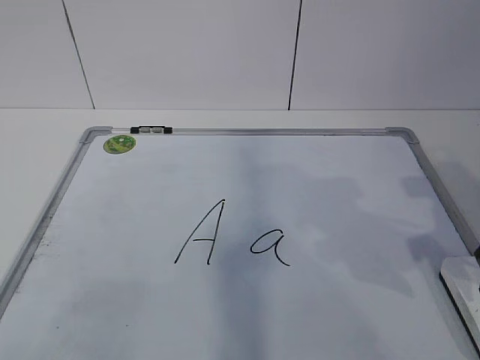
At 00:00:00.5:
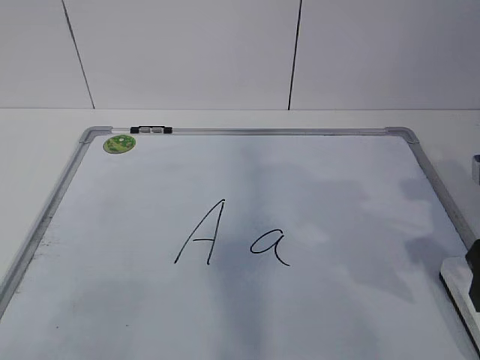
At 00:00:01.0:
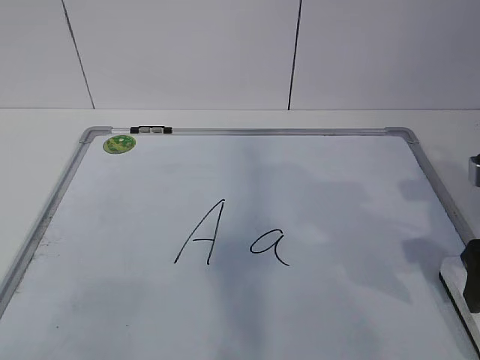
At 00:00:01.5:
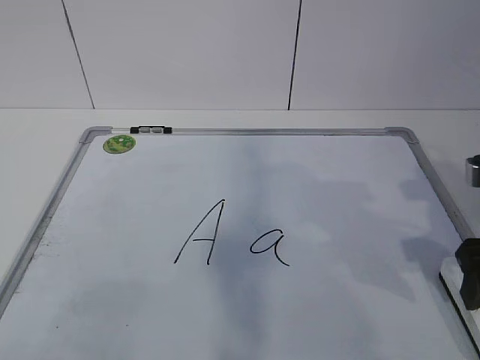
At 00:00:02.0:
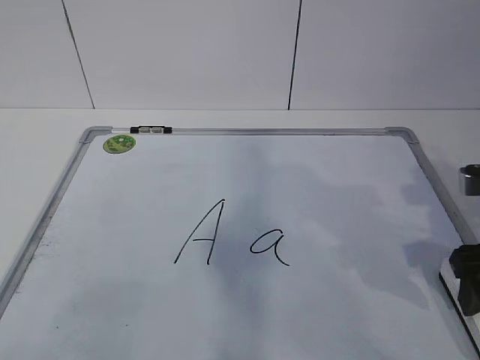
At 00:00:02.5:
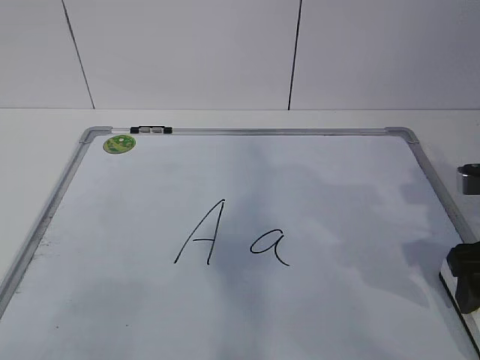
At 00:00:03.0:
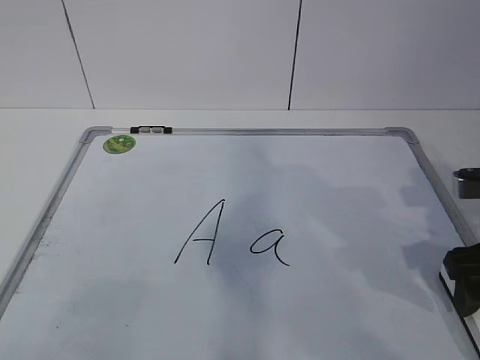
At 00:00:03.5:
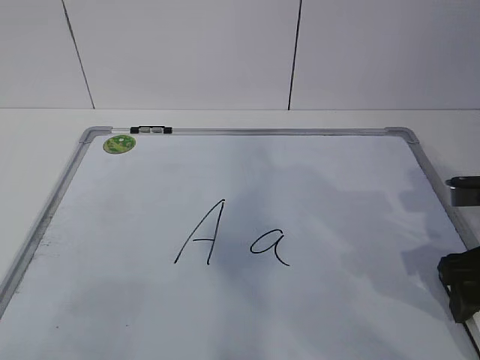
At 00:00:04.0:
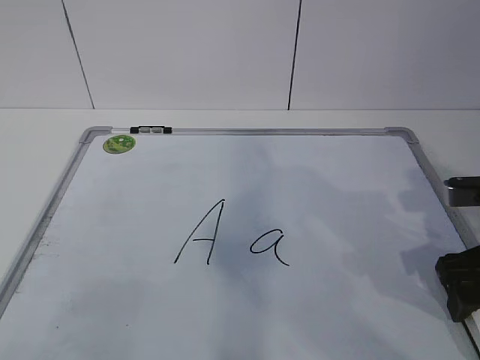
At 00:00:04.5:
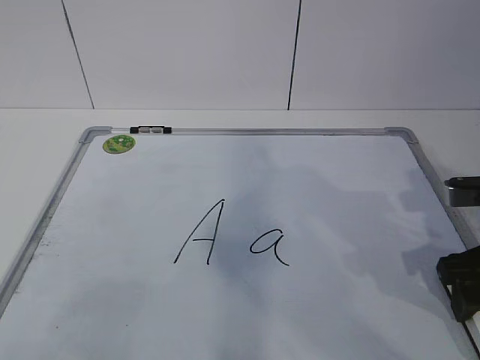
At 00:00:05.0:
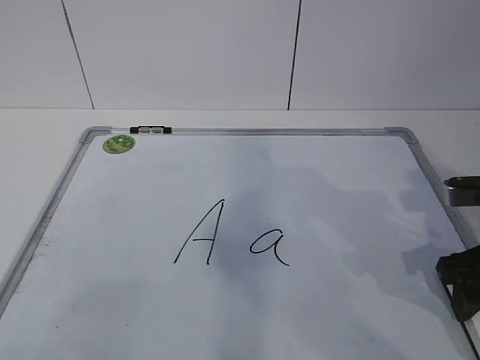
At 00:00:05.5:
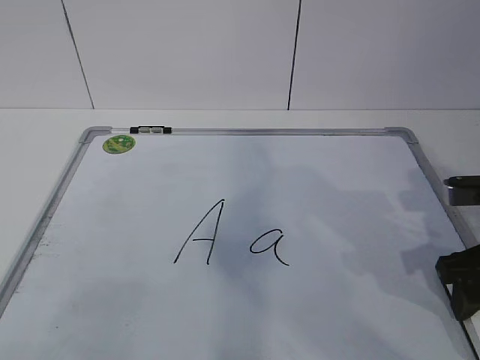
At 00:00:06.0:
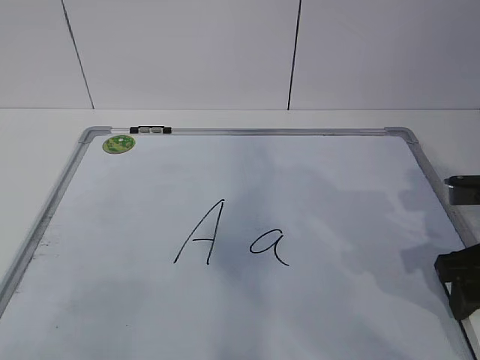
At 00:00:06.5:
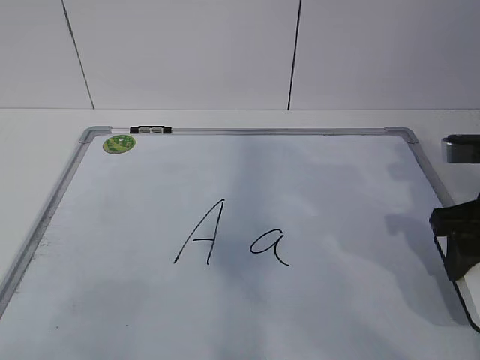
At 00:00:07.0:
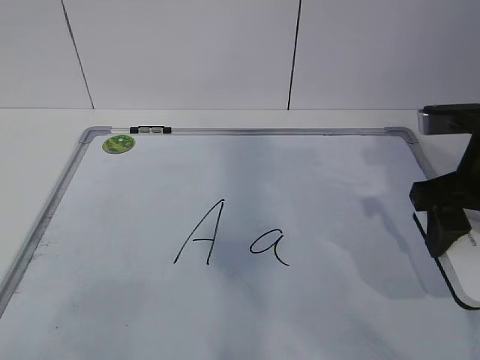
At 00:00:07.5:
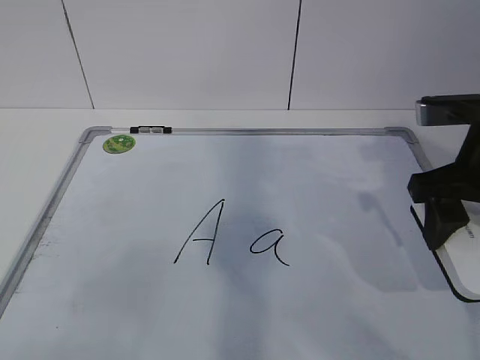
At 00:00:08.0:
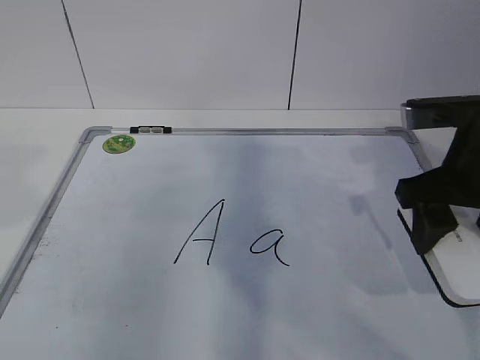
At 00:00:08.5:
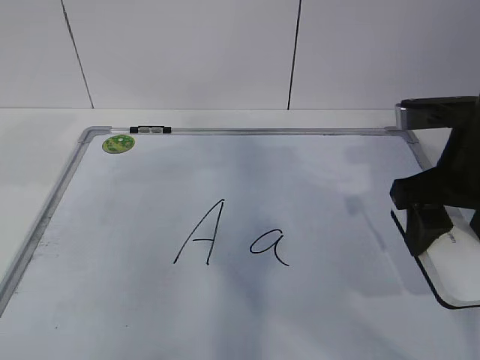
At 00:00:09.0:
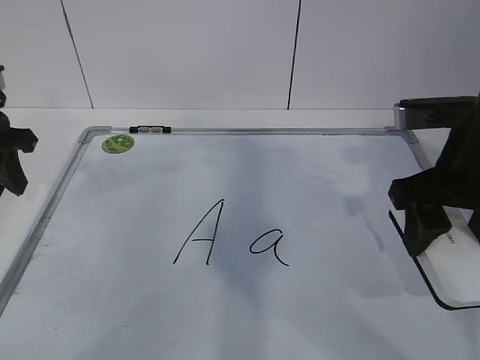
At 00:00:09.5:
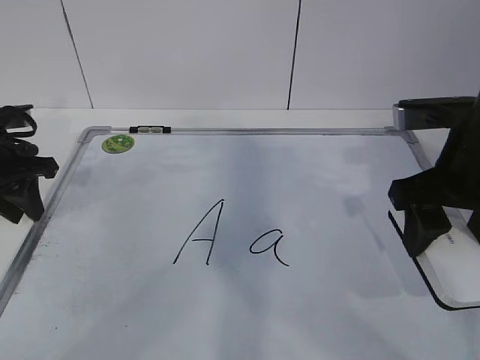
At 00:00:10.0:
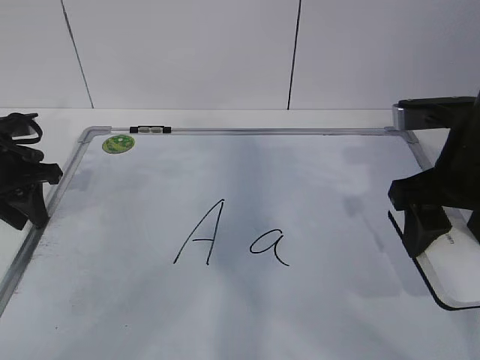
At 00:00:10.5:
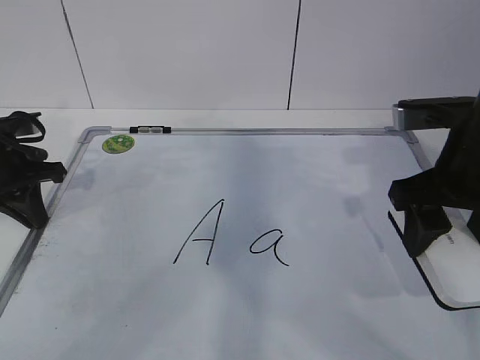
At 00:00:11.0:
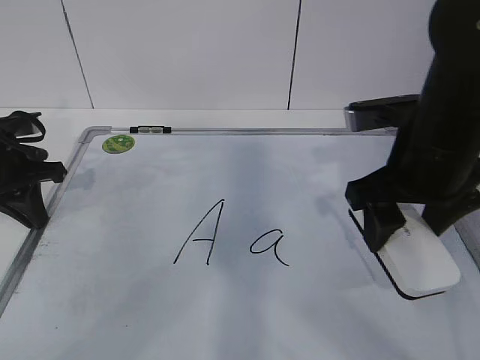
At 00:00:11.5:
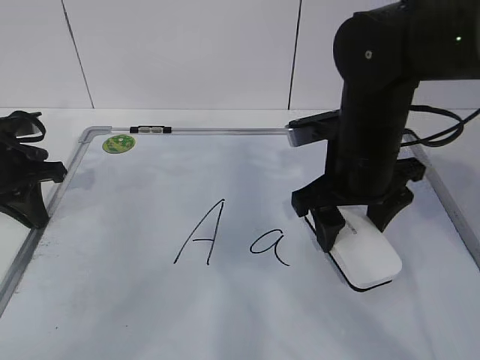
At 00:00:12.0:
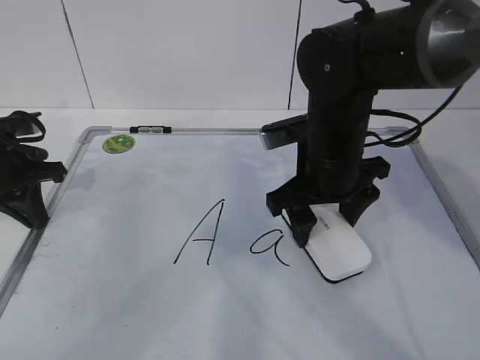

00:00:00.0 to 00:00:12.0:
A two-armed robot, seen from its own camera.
Task of the whole recording: pick up the eraser on the blackboard and erase the letter "a".
Step, 00:00:04.5 to 00:00:07.5: Hold the drawing board steady with your left hand.
00:00:00.0 to 00:00:02.0: The right gripper opens up.
00:00:02.0 to 00:00:04.0: The grippers move only a little.
00:00:06.0 to 00:00:08.0: The right gripper travels upward by approximately 10 cm.
00:00:08.0 to 00:00:10.0: The left gripper shifts approximately 30 cm forward and downward.
00:00:10.0 to 00:00:12.0: The right gripper travels to the left, forward and downward by about 15 cm; the left gripper closes.

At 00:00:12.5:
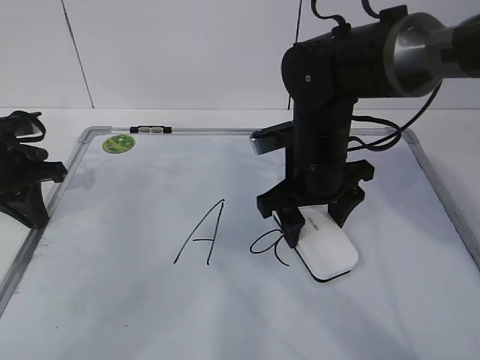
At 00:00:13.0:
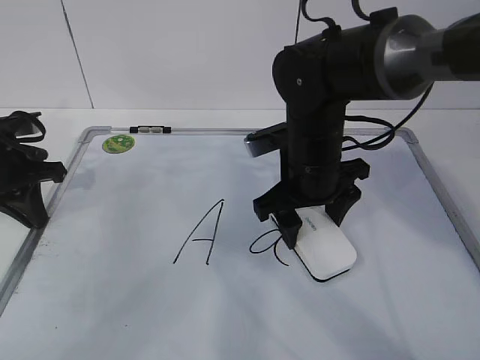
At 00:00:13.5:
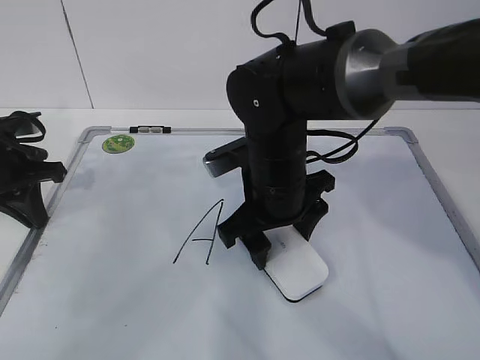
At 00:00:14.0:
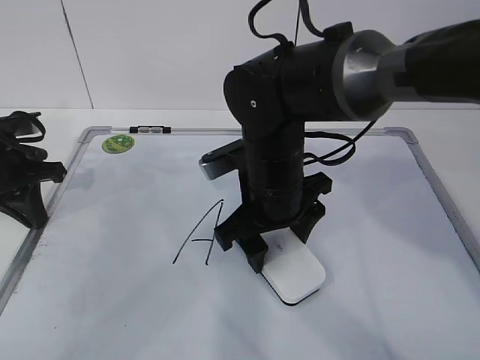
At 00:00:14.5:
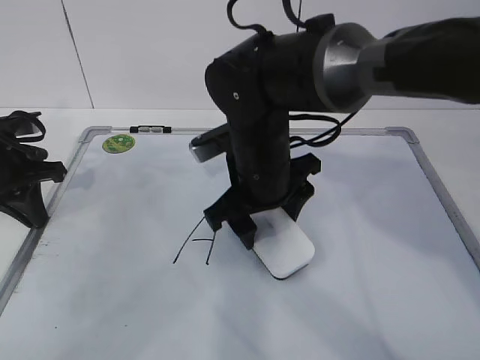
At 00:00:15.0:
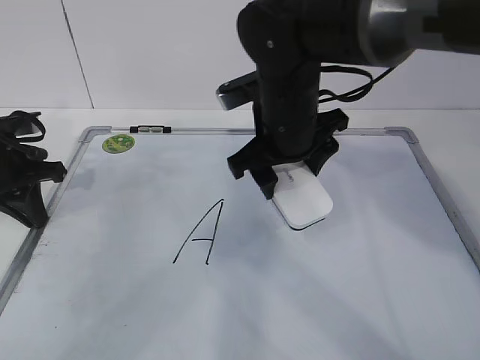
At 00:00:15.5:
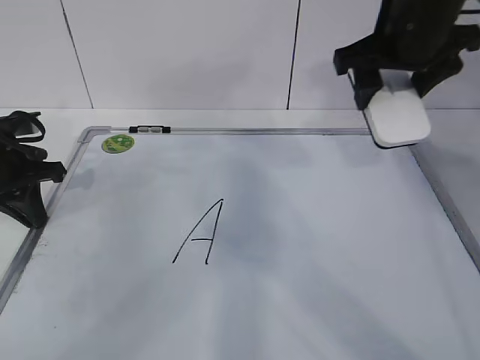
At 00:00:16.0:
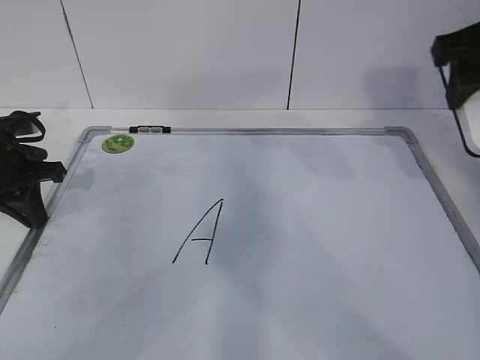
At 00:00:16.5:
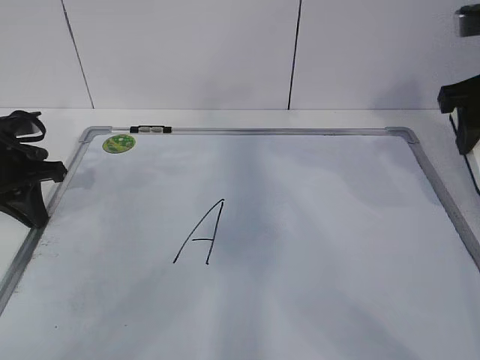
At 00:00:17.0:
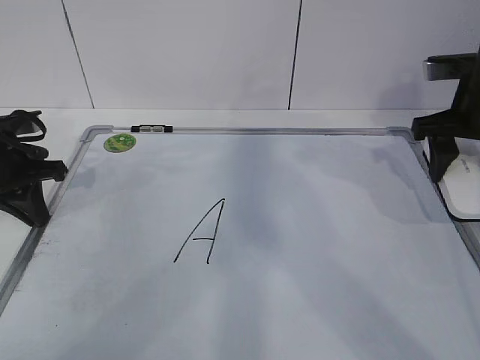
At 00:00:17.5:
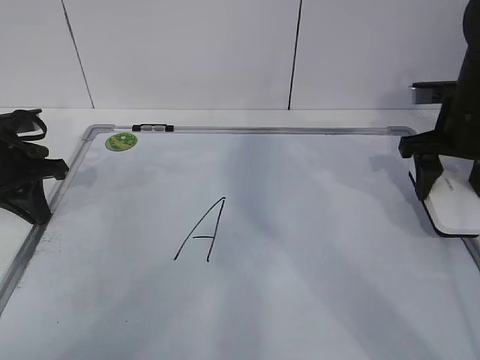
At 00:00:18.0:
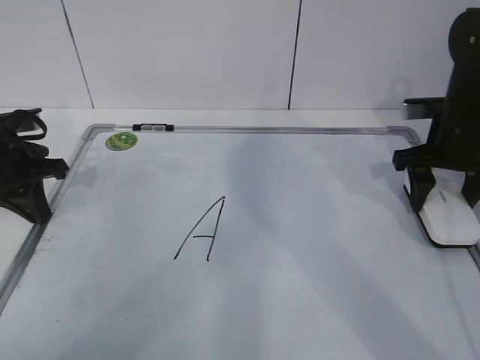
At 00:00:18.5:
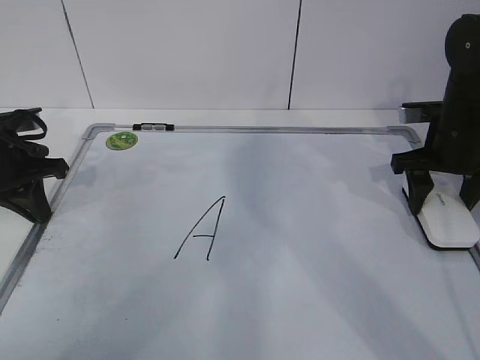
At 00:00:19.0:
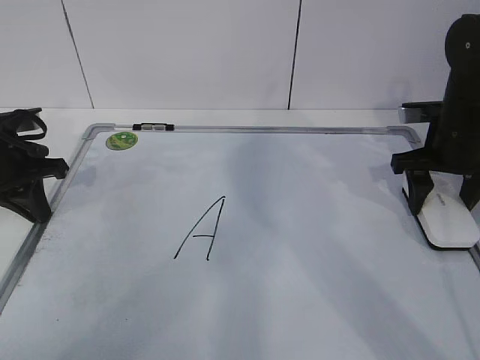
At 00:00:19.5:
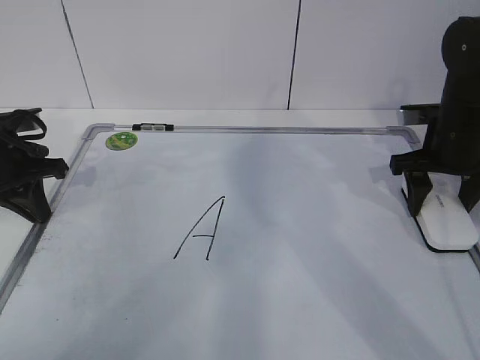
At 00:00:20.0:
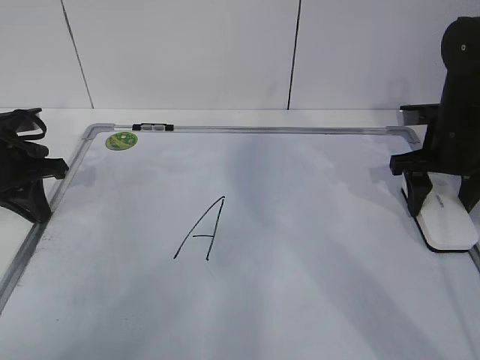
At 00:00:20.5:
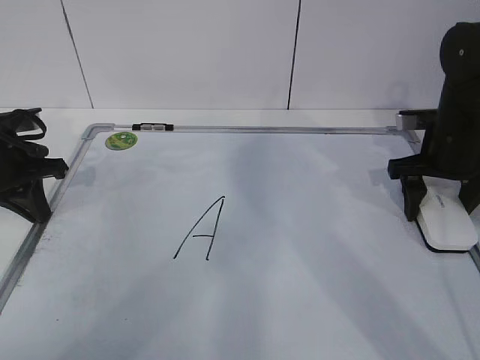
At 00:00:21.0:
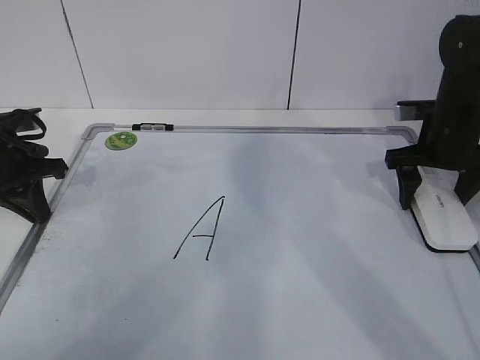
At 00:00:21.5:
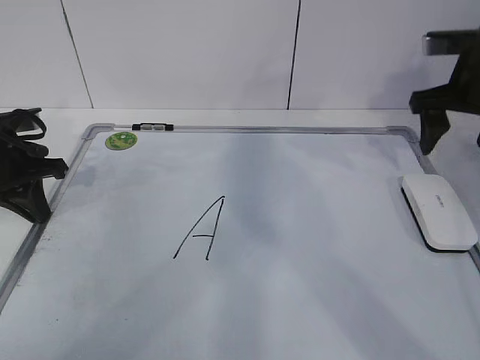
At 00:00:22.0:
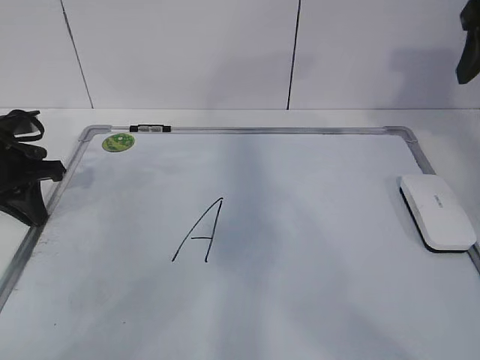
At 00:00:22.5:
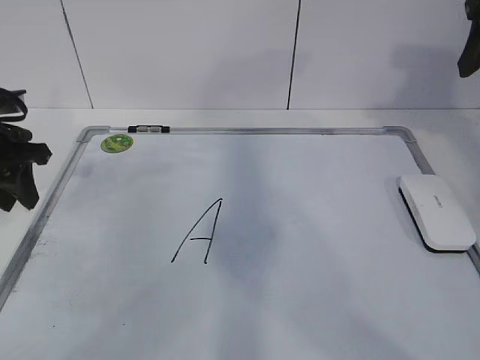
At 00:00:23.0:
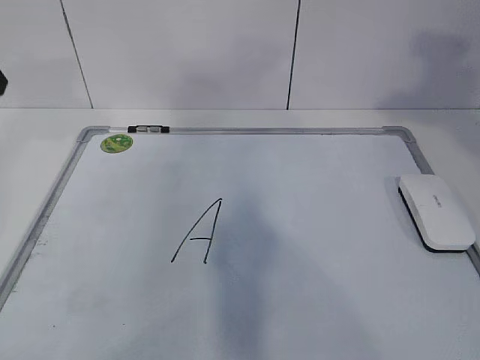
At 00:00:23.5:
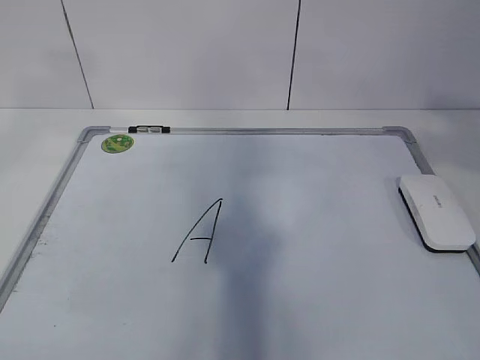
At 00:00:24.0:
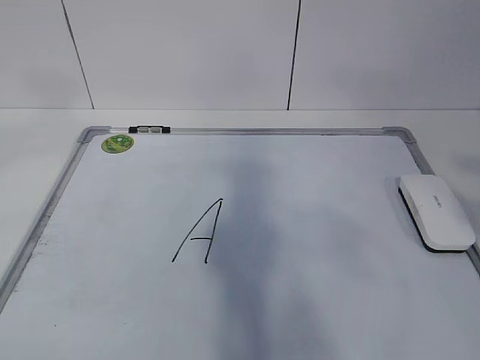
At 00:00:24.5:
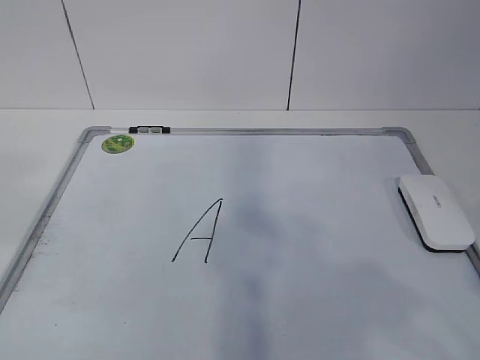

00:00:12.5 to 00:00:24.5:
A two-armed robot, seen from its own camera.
Task of the whole recording: pick up the eraser on the blackboard and erase the letter "a".
Step, 00:00:12.5 to 00:00:16.0: Put down the eraser with your right hand.
00:00:12.5 to 00:00:14.5: The right gripper heads to the left, covering approximately 5 cm.
00:00:14.5 to 00:00:16.5: The right gripper moves to the right and upward, about 25 cm.
00:00:16.5 to 00:00:18.5: The right gripper shifts approximately 15 cm downward and forward.
00:00:18.5 to 00:00:20.5: The right gripper opens up.
00:00:20.5 to 00:00:22.5: The right gripper heads upward, covering some 20 cm. The left gripper opens its fingers.
00:00:22.5 to 00:00:24.5: The right gripper moves backward, approximately 30 cm, while the left gripper is displaced backward and upward by about 40 cm.
